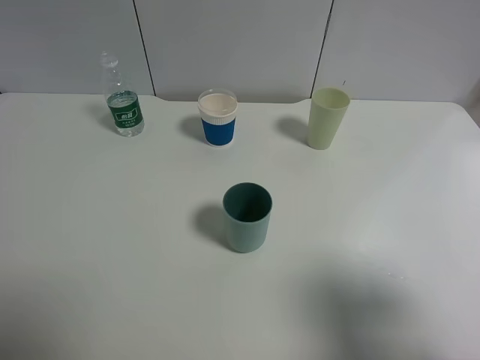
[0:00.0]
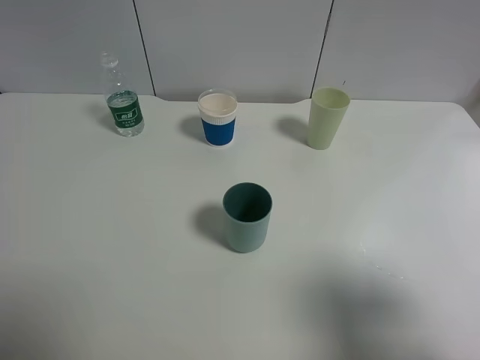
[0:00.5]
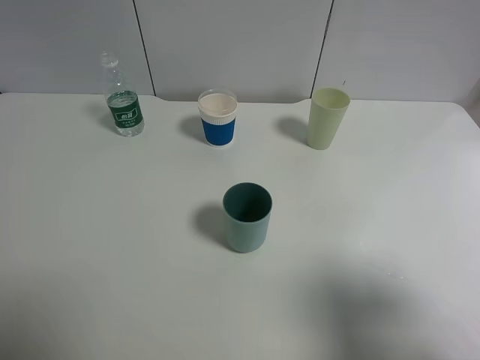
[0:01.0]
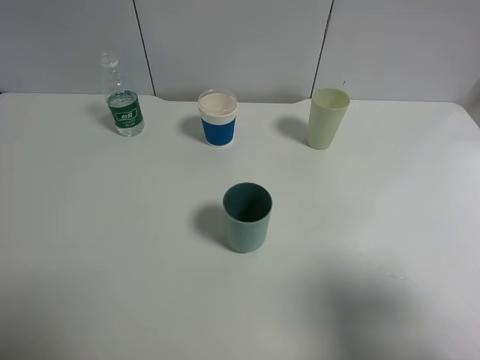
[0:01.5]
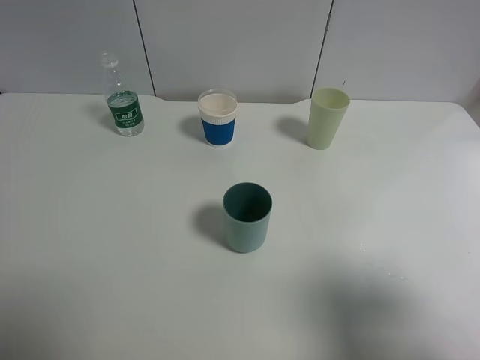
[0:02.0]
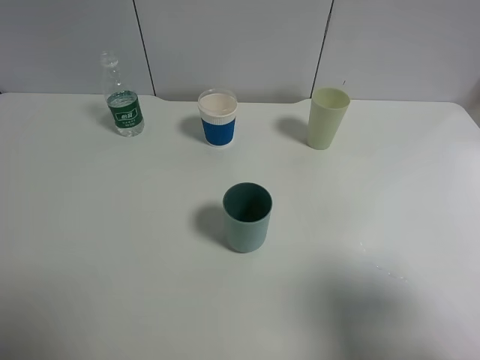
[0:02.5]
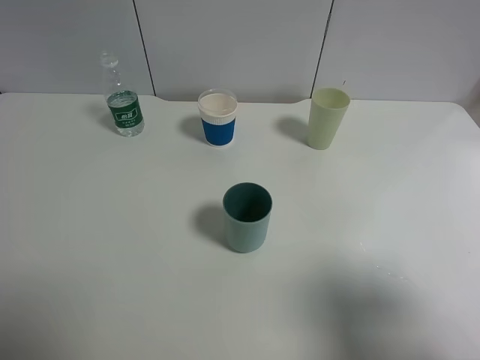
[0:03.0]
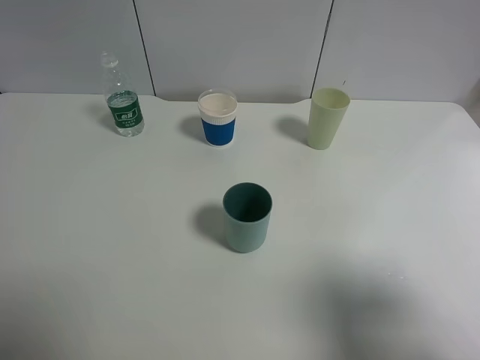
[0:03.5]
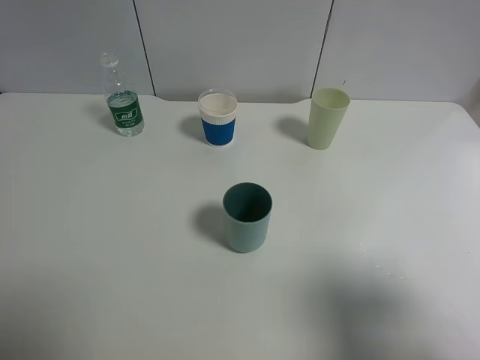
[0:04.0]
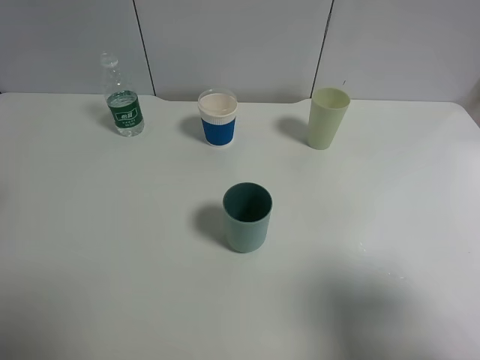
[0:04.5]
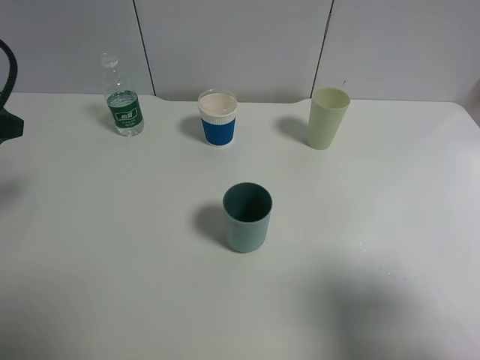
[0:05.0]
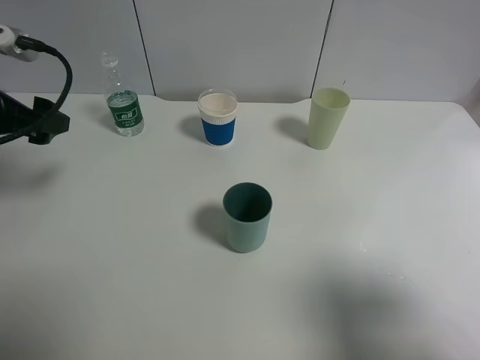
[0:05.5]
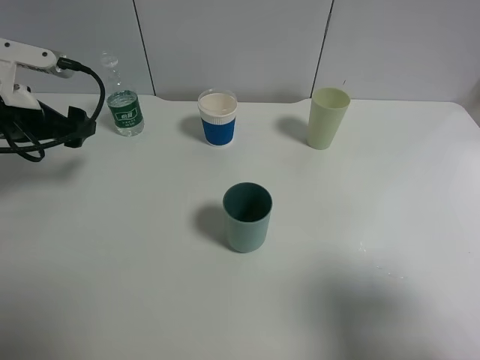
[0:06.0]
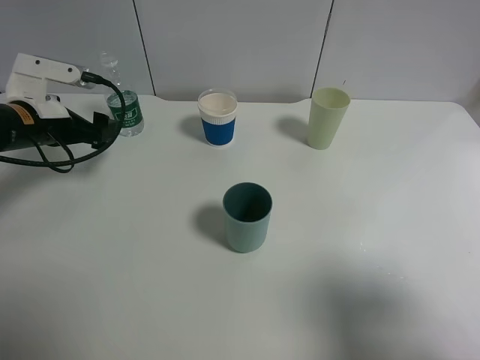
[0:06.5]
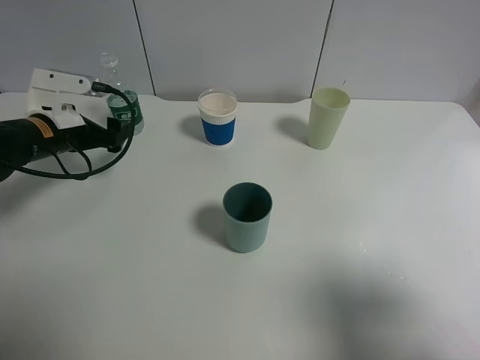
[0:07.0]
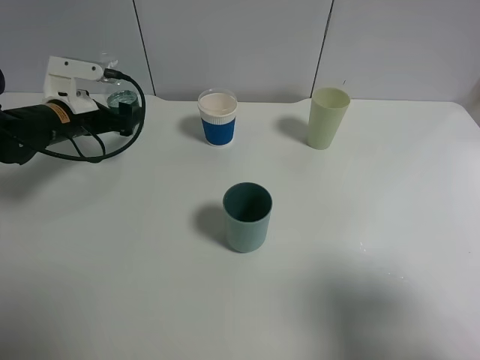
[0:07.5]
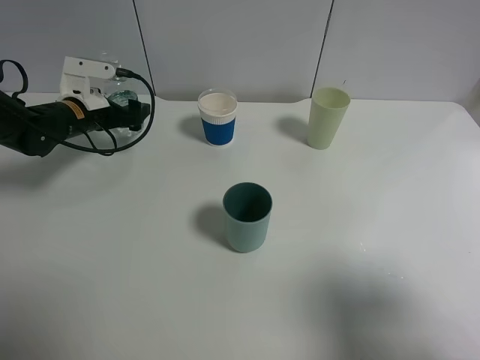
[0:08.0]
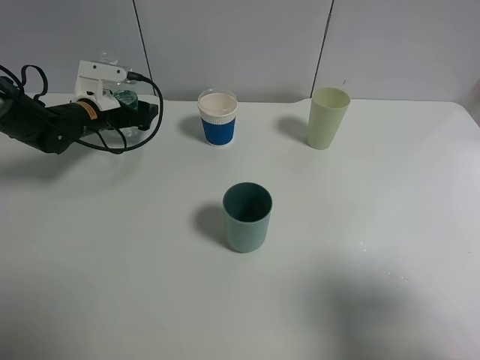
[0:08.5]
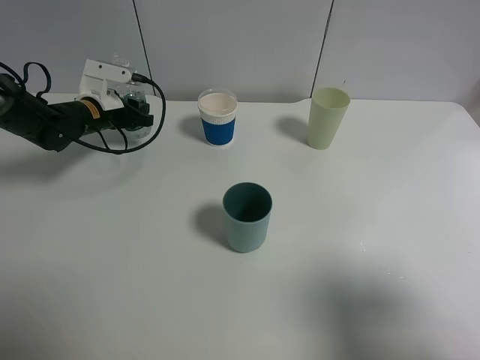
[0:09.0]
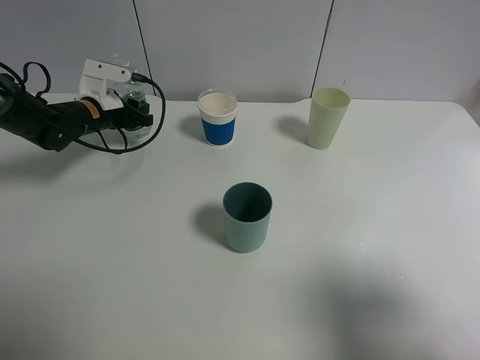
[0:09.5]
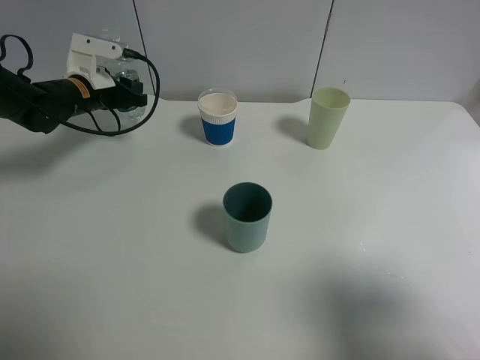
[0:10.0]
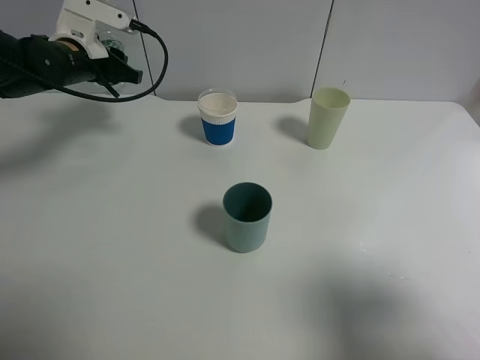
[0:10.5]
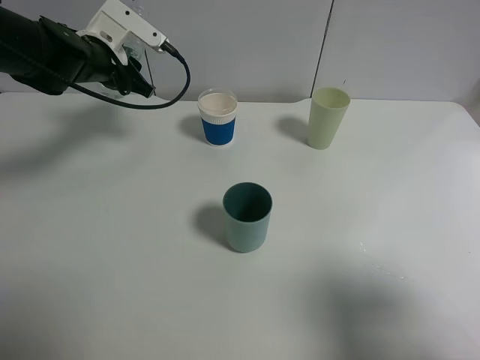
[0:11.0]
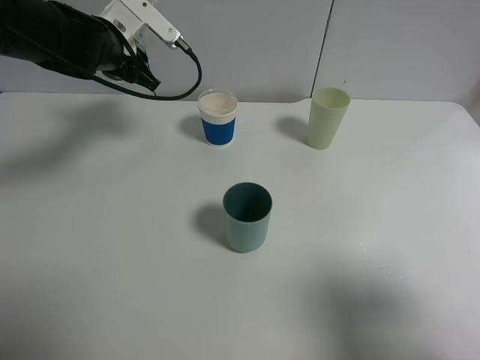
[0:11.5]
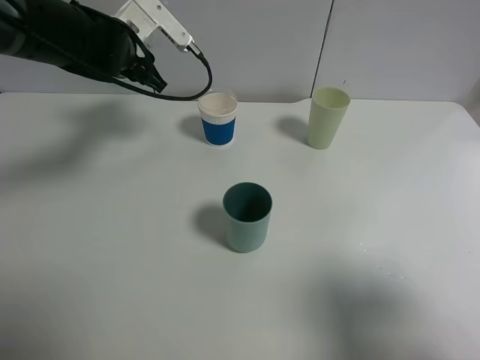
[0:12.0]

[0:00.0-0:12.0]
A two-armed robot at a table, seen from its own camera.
Task of the whole recording: use a gripper to hold the bottle of the drink and pour it into a random cup.
Step, 0:00.0 to 0:09.0: Grasp the mineral water bottle with the left gripper.
0:00.0 to 0:02.0: The two grippers keep their place.
0:04.0 to 0:06.0: The left gripper goes roughly 25 cm forward and downward.
0:06.0 to 0:08.0: The left gripper moves forward and downward, some 15 cm.
0:08.0 to 0:10.0: The left gripper closes its fingers.
0:10.0 to 0:12.0: The left gripper shifts some 10 cm to the right and upward.

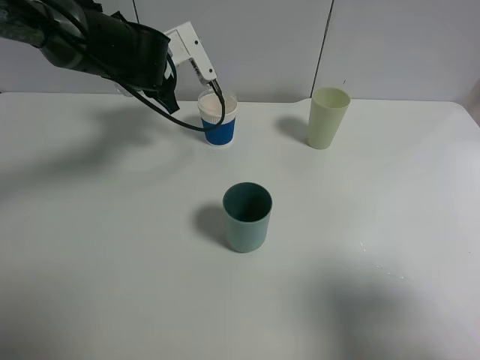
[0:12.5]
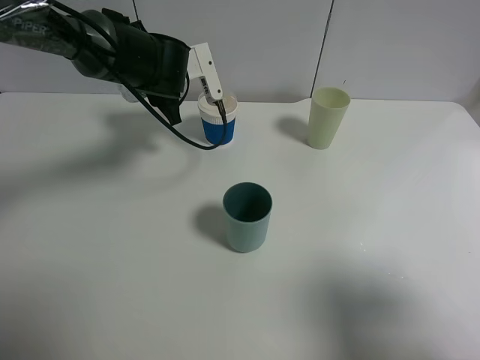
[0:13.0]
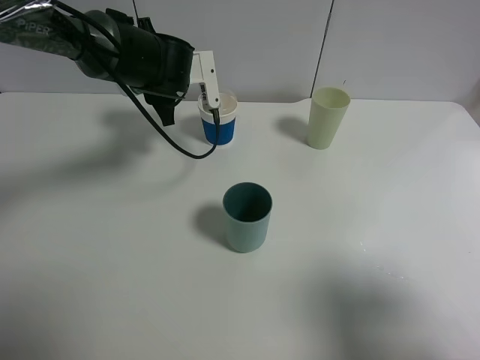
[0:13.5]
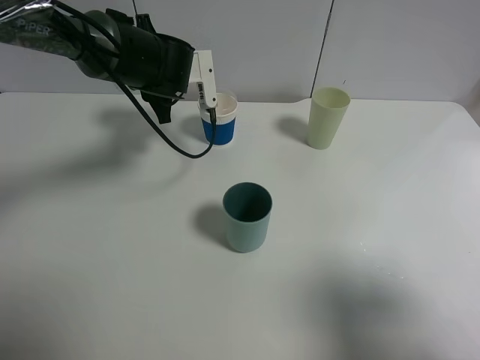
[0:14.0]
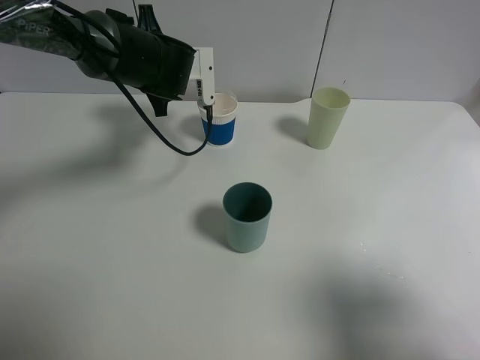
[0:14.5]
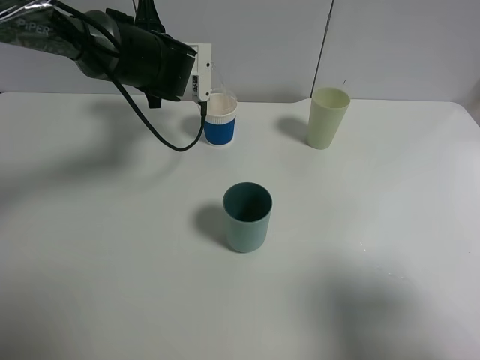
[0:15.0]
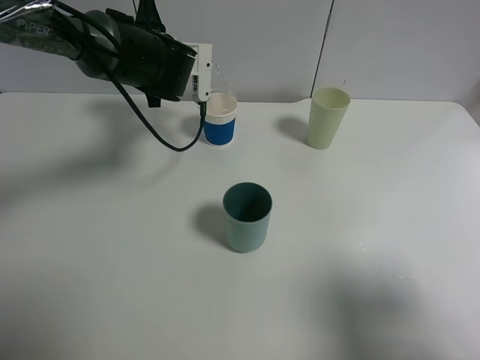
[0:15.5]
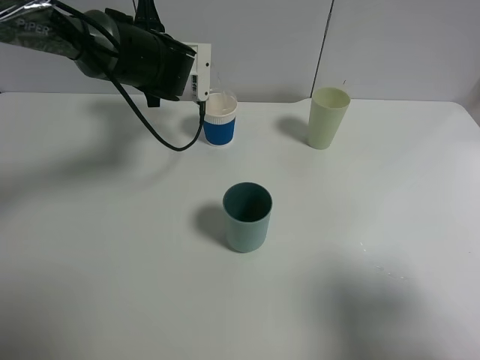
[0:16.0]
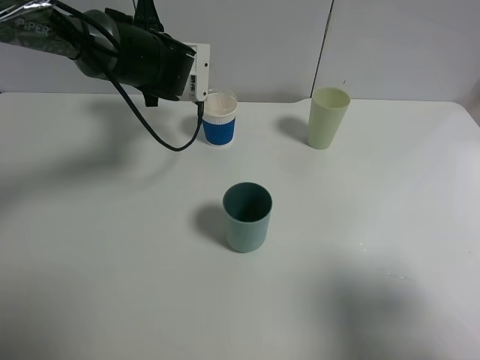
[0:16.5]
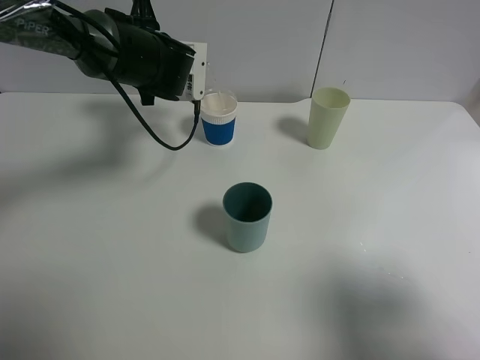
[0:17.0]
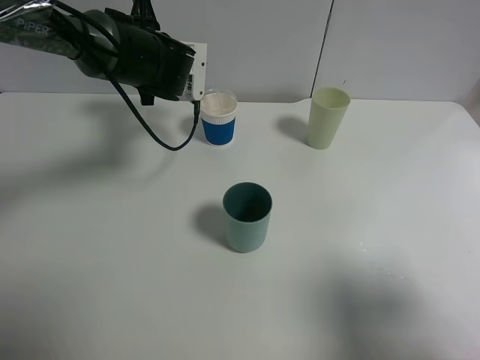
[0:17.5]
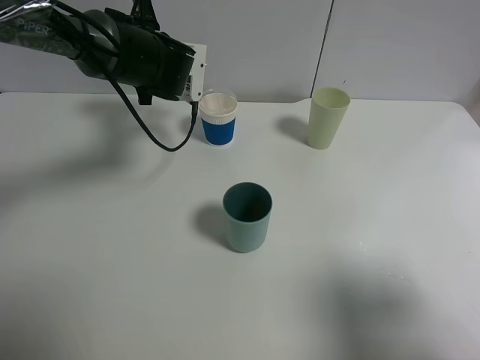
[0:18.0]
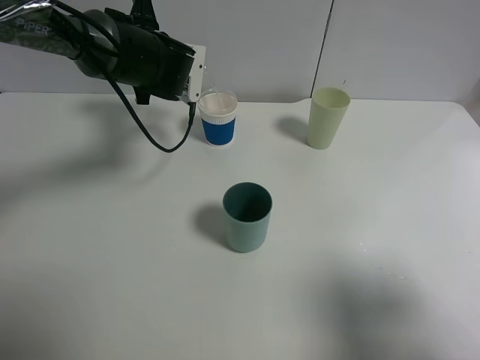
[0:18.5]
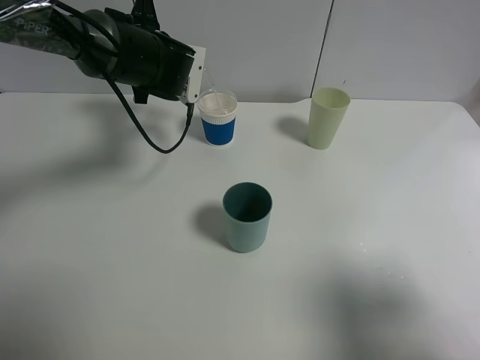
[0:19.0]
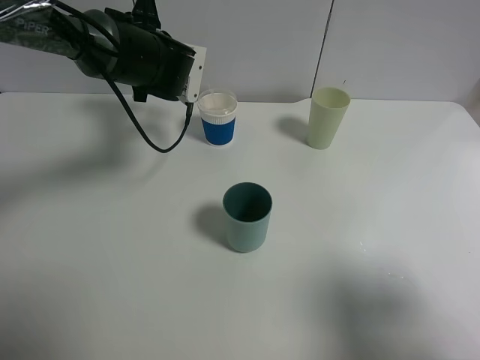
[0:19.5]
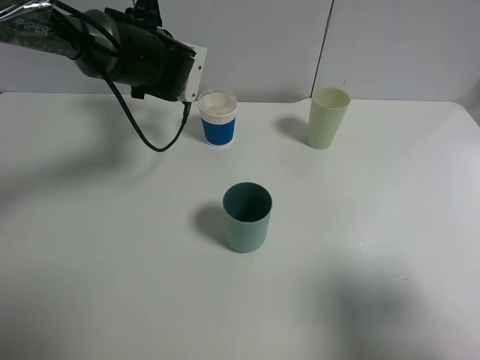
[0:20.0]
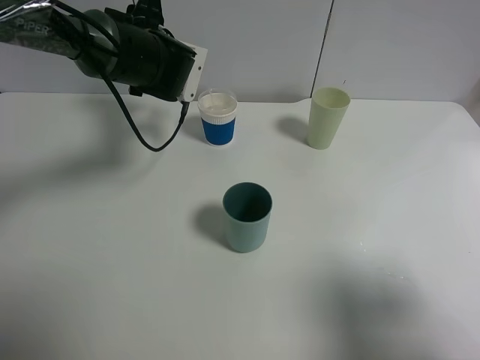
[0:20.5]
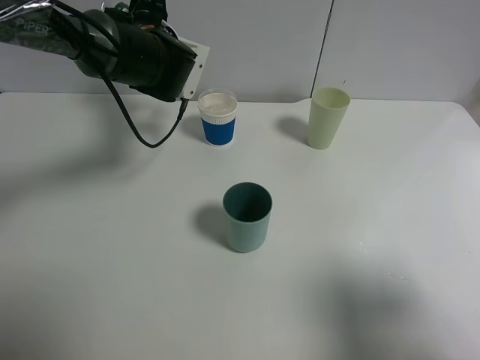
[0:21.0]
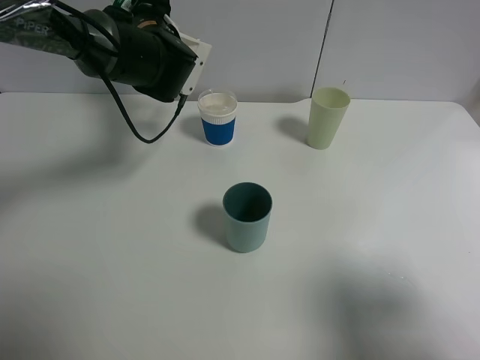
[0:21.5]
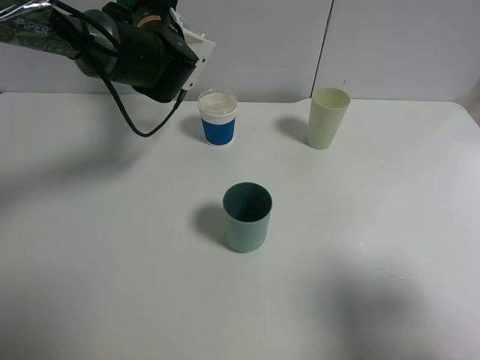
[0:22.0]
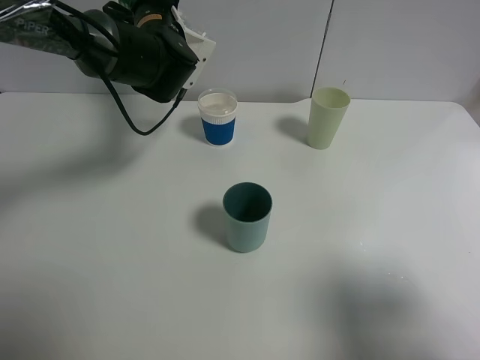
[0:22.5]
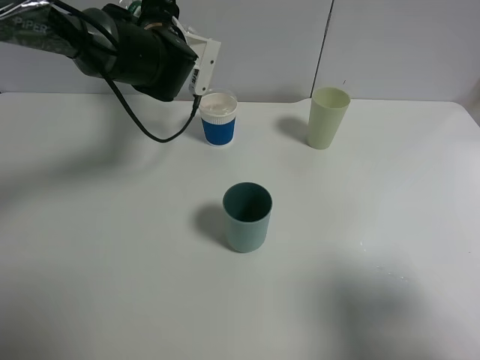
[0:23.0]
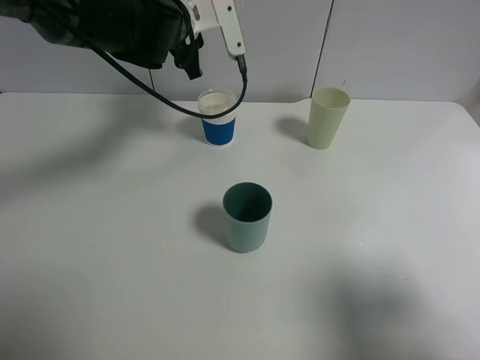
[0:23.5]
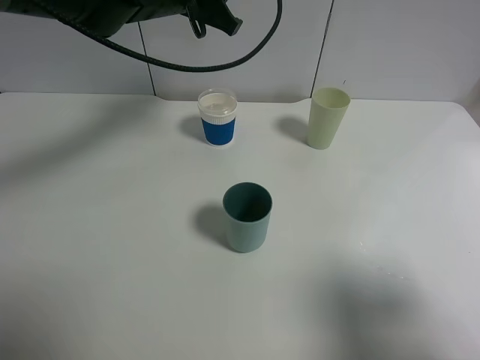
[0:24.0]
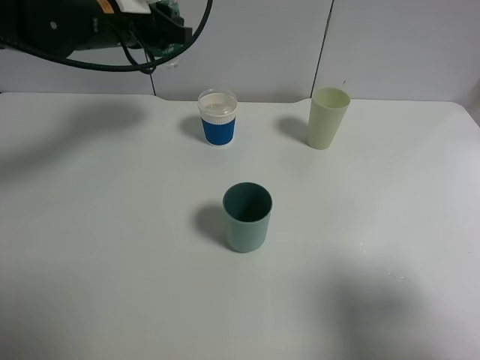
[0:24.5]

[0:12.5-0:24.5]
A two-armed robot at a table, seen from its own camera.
Task of the whole recording: use a gripper to hold the bottle of the drink and pour it into a random cup.
Step, 0:12.5 to 0:23.0: Pour the mineral water into the paper cup with the left gripper.
0:14.5 to 0:18.5: The grippers stay close to where they were, moving slightly.
0:18.5 to 0:20.5: The grippers move only a little.
0:20.5 to 0:22.5: The grippers stay close to where they were, moving slightly.
0:22.5 to 0:24.5: The left gripper moves to the left, roughly 5 cm.

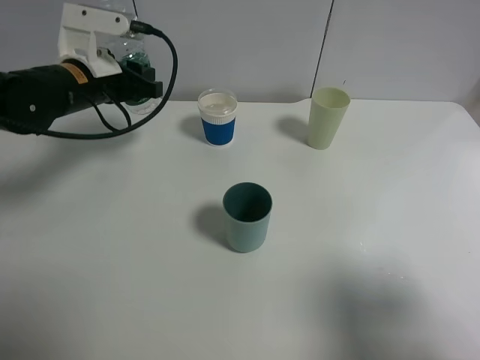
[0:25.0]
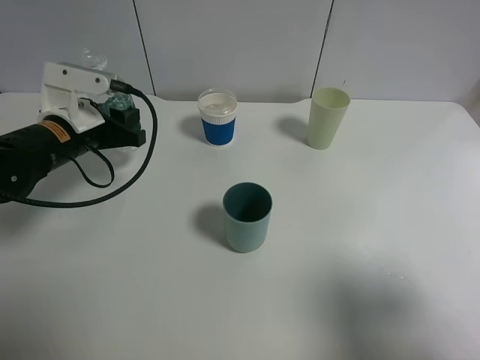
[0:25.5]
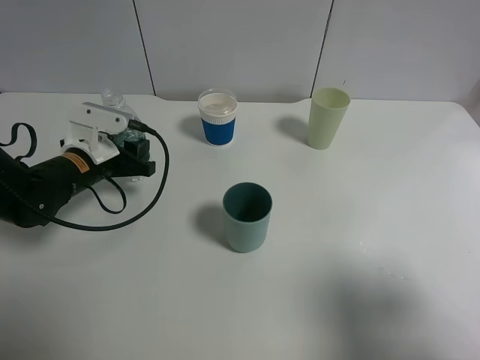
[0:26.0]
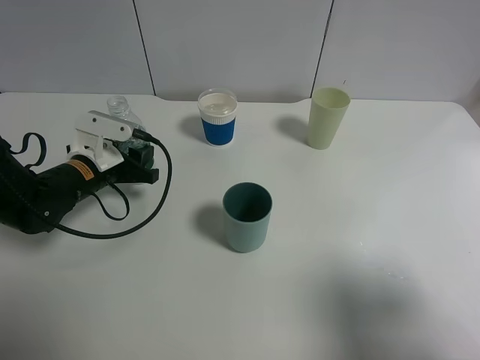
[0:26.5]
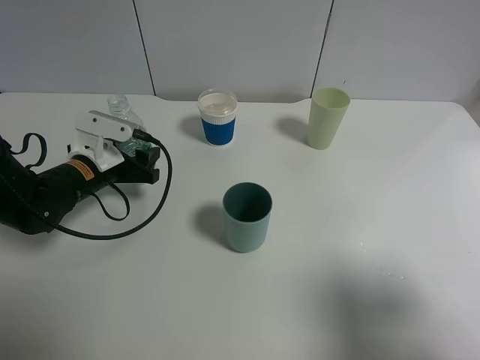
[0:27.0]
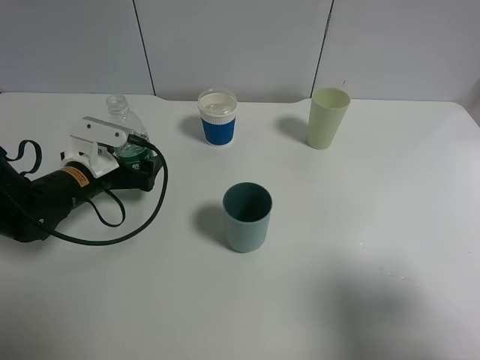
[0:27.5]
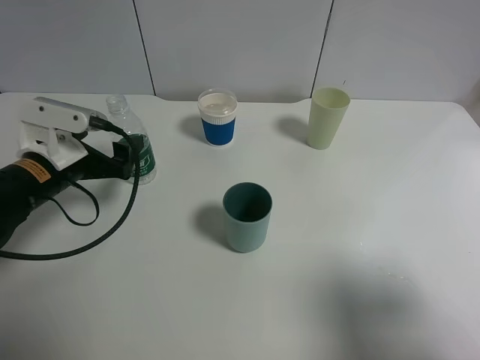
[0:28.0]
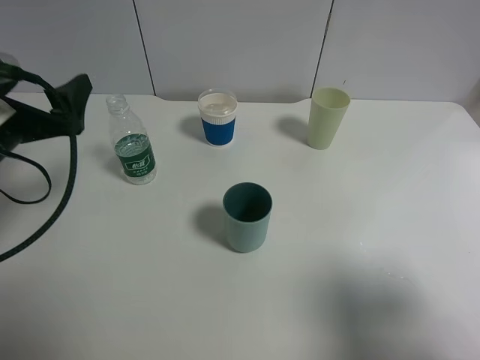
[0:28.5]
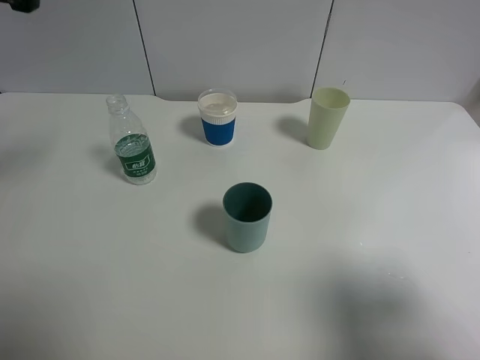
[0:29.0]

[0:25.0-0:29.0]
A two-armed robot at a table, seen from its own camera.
Task of the whole recording: use a gripper to hold the bottle of the drink and pour it into a random cup.
Step, 0:25.0 to 0:27.5: Place the mineral water bottle on the table with the left gripper.
0:25.0 to 0:27.0: The left gripper is displaced downward by roughly 10 cm, and opens.
0:27.0 to 0:29.0: The left gripper goes some 25 cm upward, and opens up.
